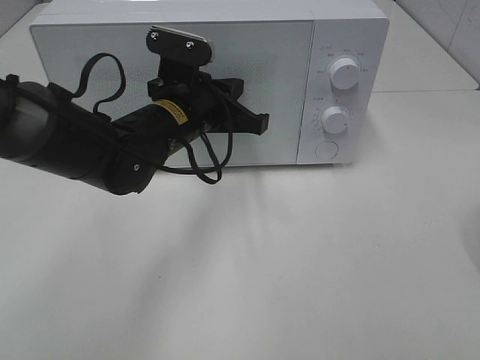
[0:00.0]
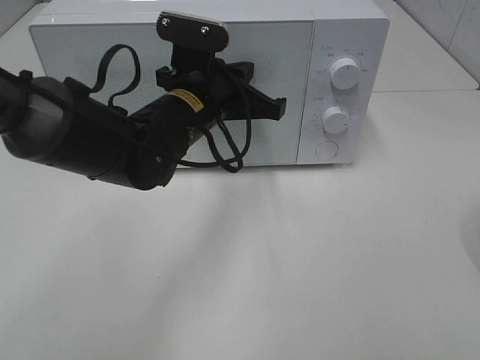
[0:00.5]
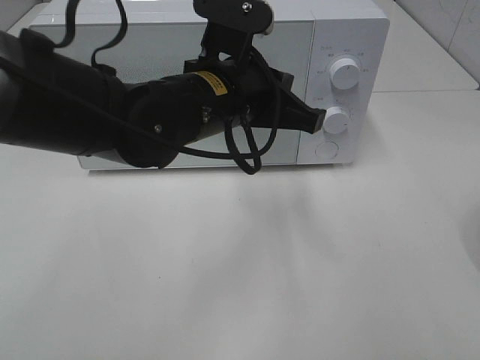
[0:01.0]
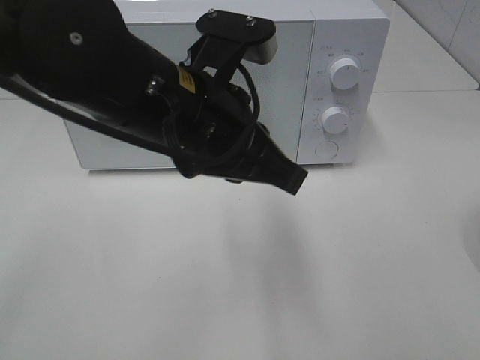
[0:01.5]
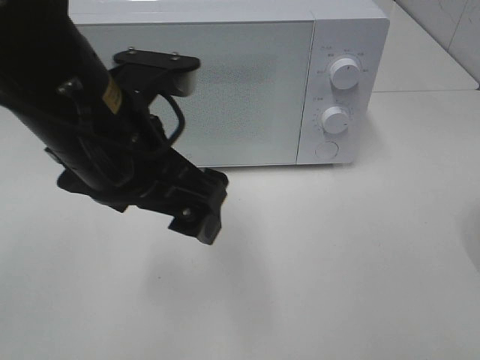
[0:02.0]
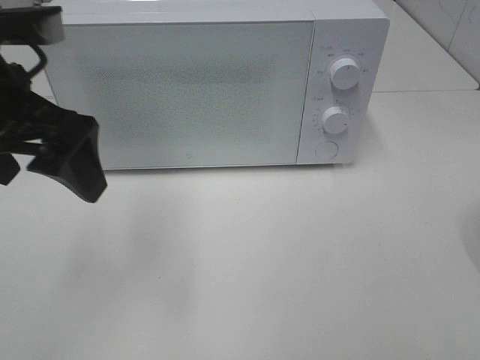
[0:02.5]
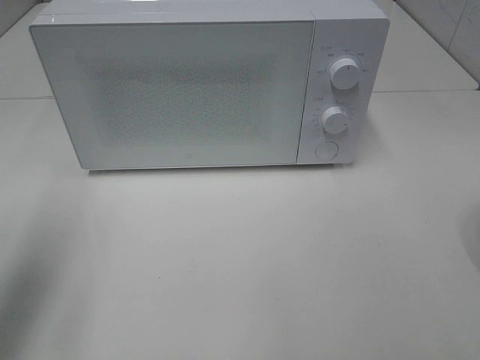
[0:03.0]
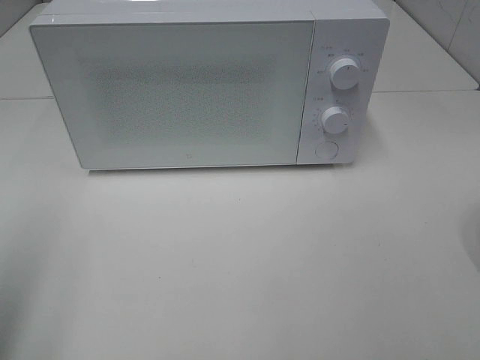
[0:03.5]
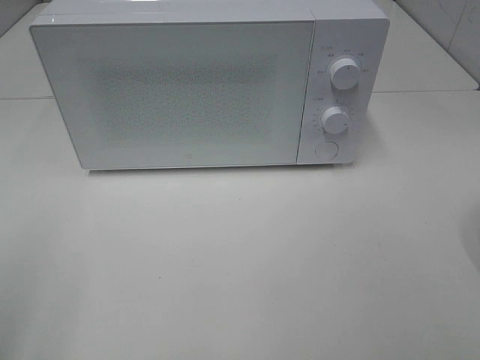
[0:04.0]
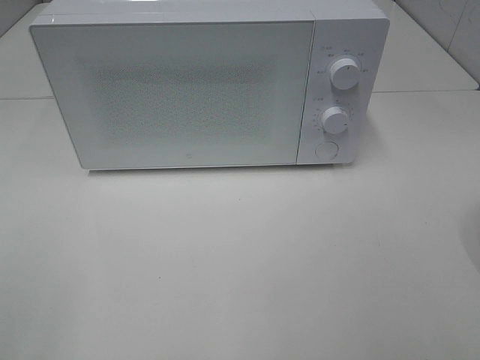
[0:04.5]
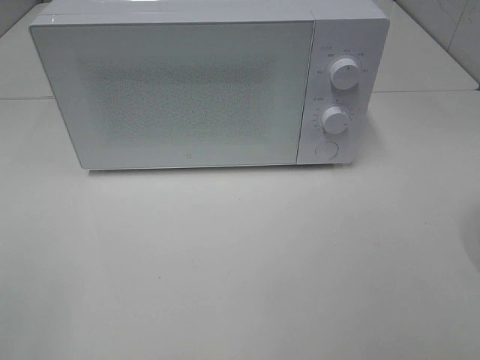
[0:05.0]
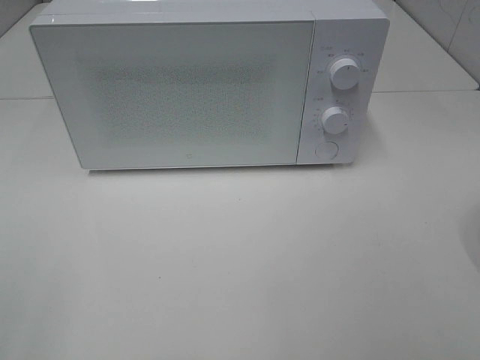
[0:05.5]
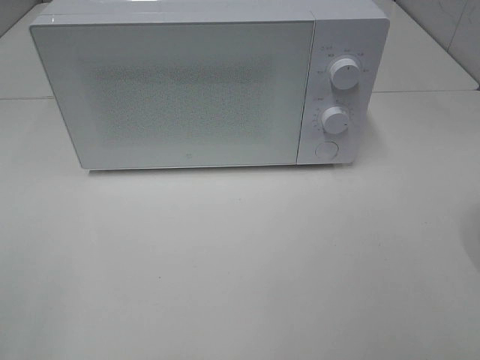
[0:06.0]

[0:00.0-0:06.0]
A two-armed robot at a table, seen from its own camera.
Task of the whole recording: Heat the burger.
0:00.0 to 0:02.0: The left gripper heads backward and upward, covering approximately 15 cm, and opens.
0:02.0 to 0:04.0: The left gripper is displaced to the left and backward by some 25 cm.

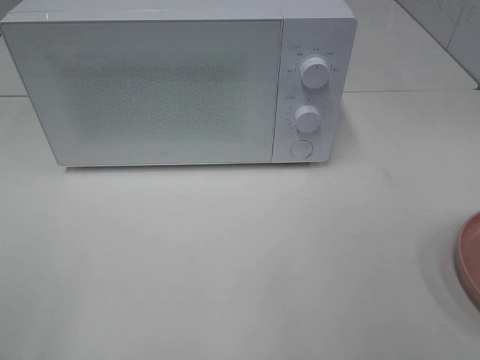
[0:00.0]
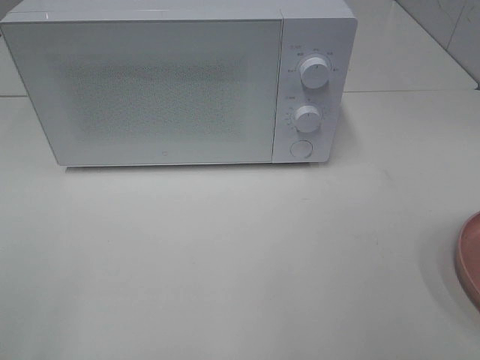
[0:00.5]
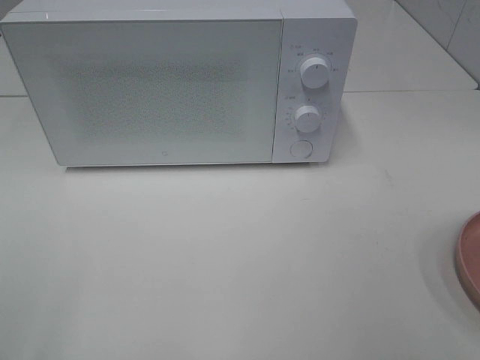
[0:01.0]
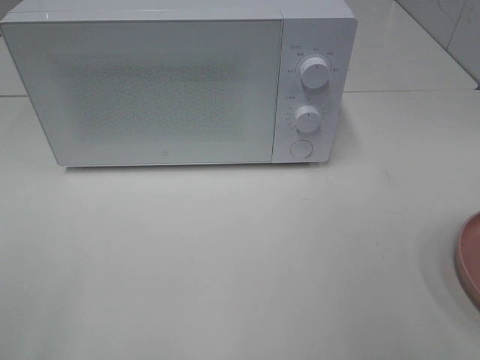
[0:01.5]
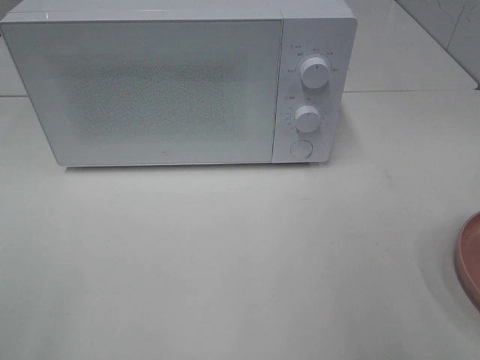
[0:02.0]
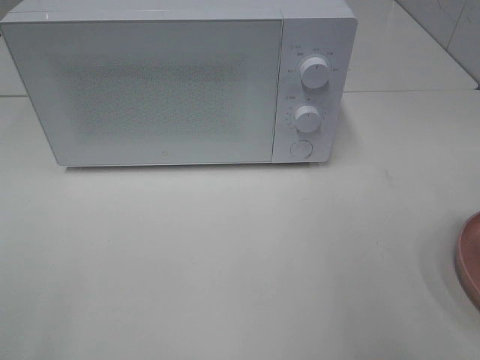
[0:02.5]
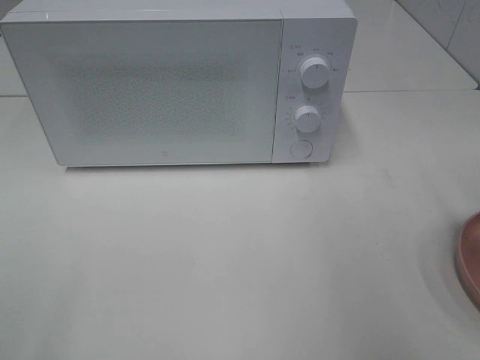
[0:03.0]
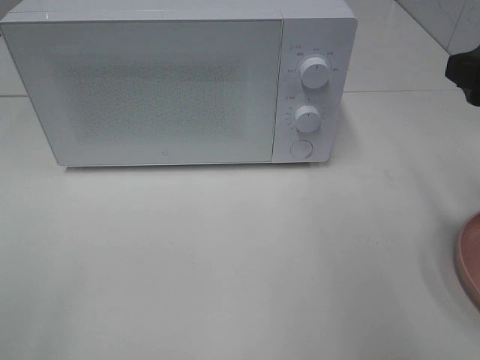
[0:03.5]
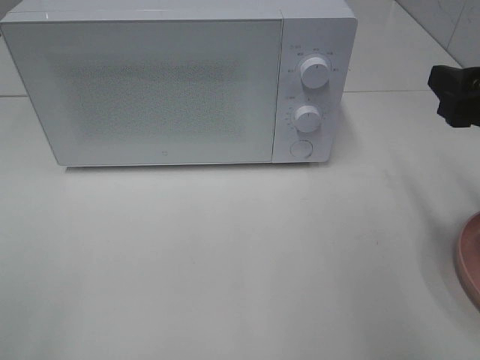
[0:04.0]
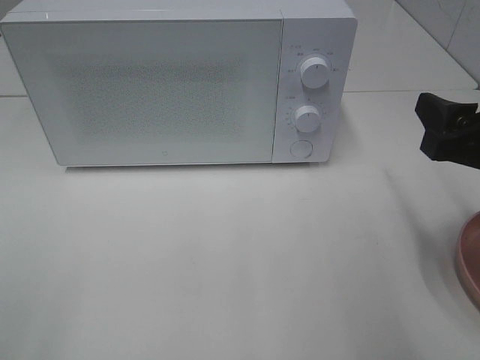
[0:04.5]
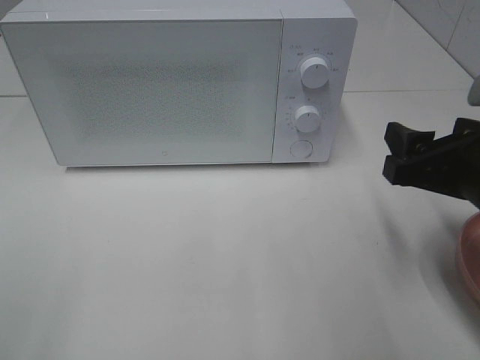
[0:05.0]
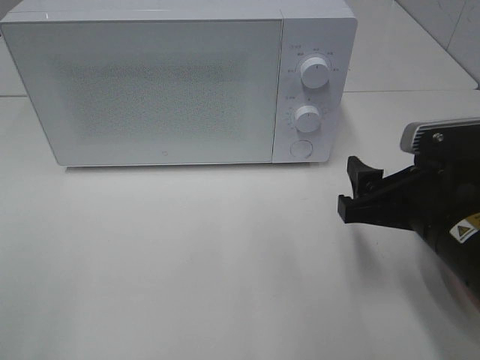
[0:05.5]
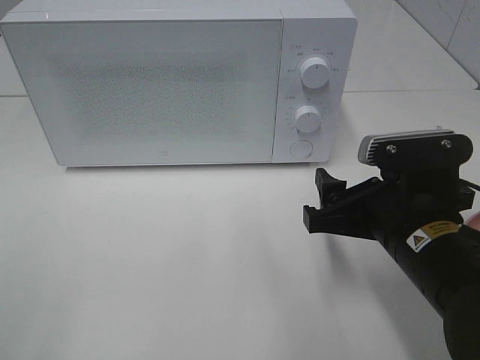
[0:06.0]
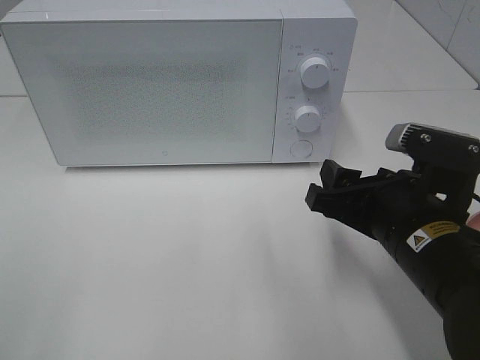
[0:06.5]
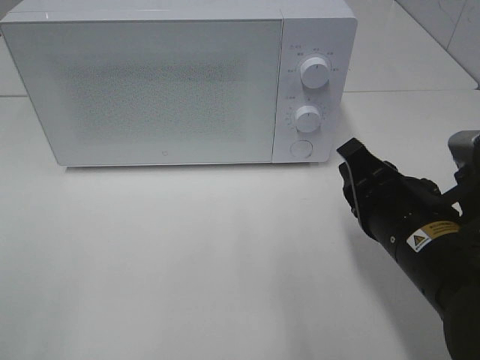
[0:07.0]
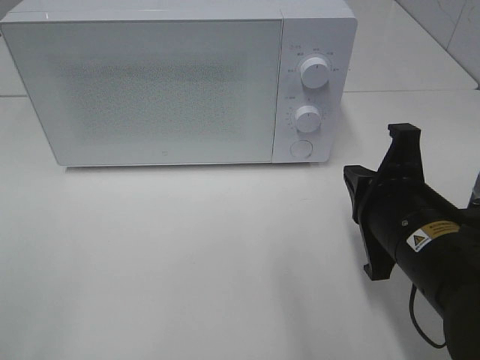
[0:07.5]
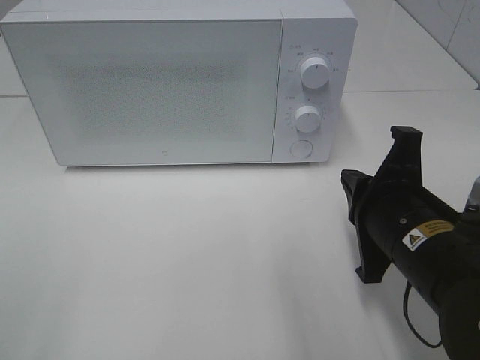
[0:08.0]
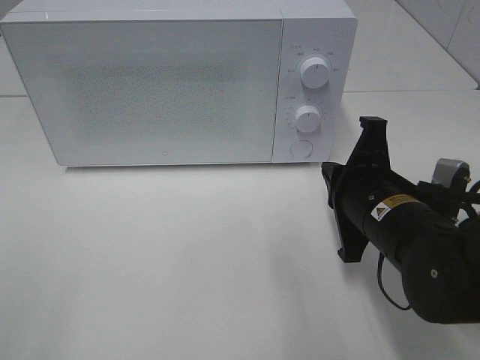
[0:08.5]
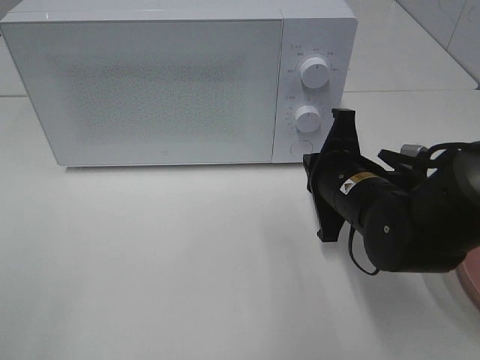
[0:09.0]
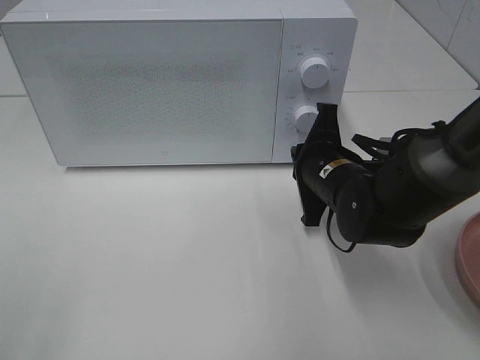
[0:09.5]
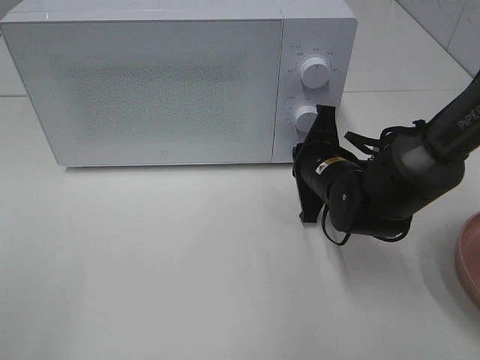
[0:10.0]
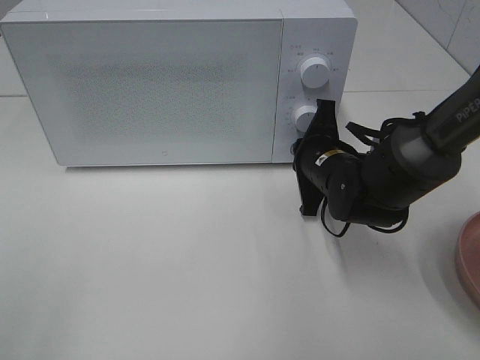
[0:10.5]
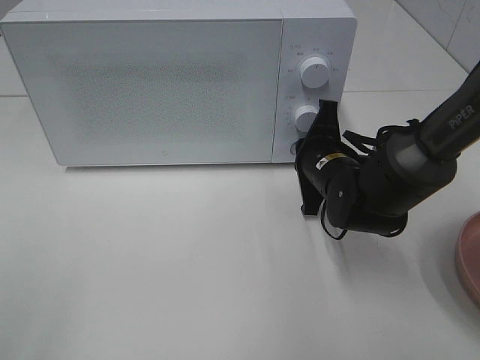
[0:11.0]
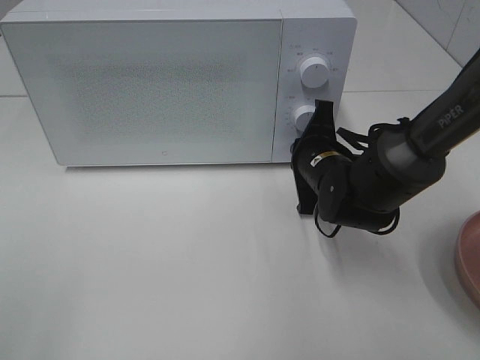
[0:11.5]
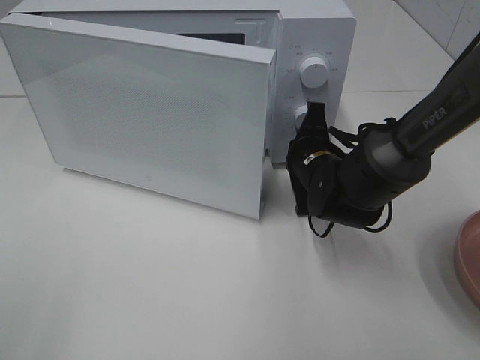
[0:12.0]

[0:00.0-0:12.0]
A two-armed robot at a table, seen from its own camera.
Task of the whole recording: Heat the burger.
0:02.0 to 0:04.0: The right gripper moves forward and downward, about 15 cm.
0:04.0 to 0:06.0: The right gripper travels to the left and downward by about 15 cm.
0:06.0 to 0:08.0: The right gripper closes.
0:08.0 to 0:10.0: The right gripper shifts approximately 15 cm forward and downward.
0:10.0 to 0:12.0: There are only small adjustments of the grippers.

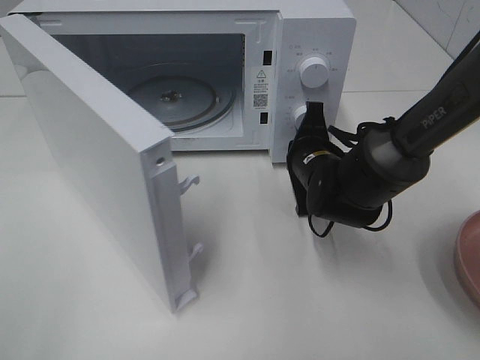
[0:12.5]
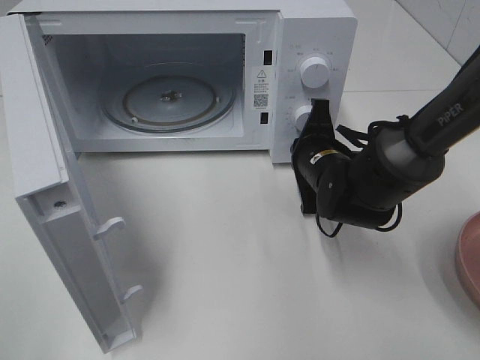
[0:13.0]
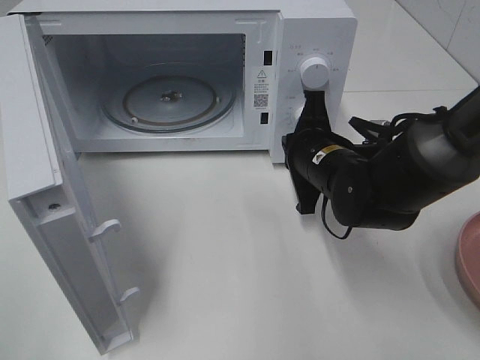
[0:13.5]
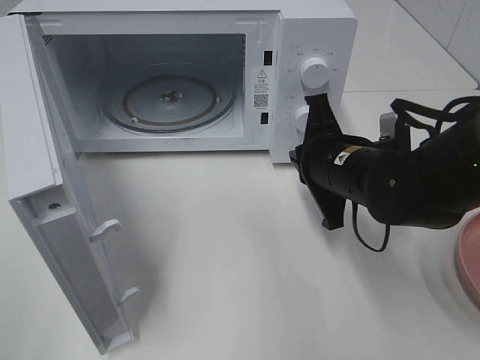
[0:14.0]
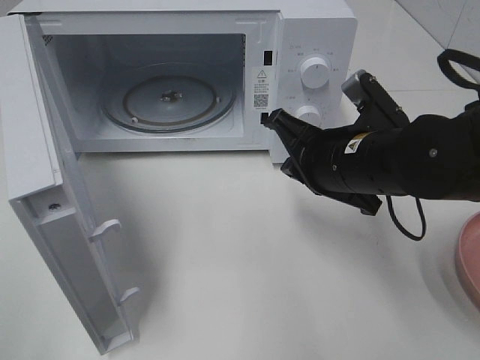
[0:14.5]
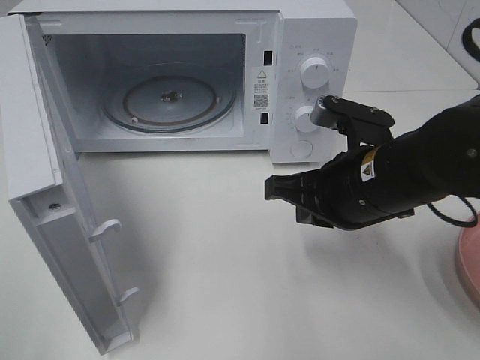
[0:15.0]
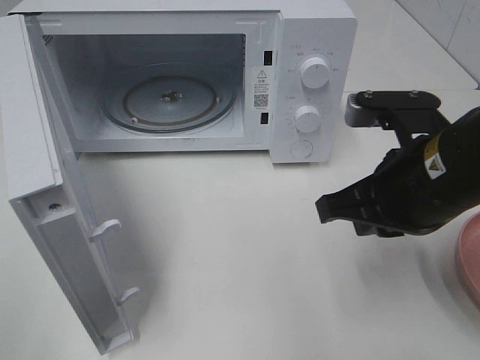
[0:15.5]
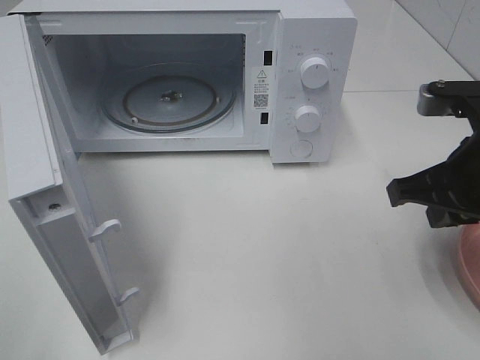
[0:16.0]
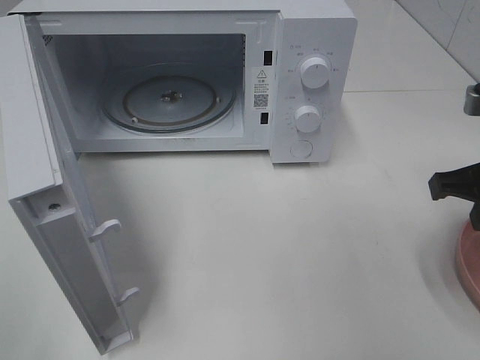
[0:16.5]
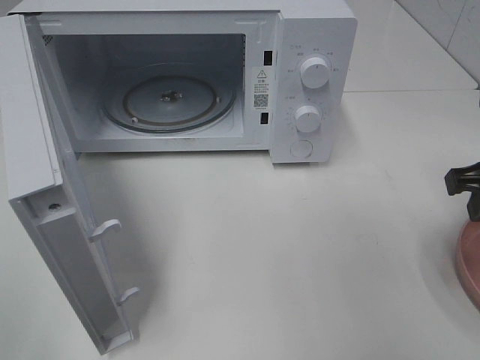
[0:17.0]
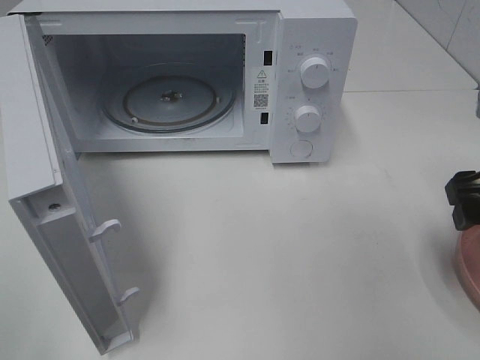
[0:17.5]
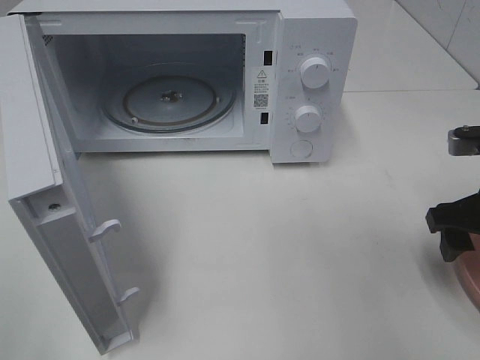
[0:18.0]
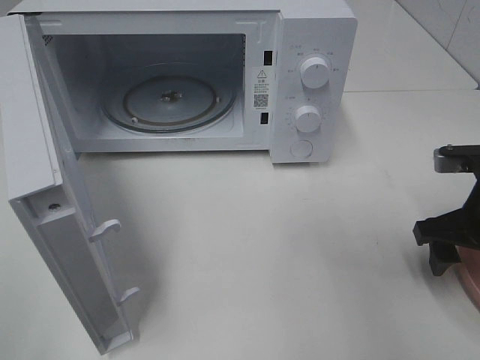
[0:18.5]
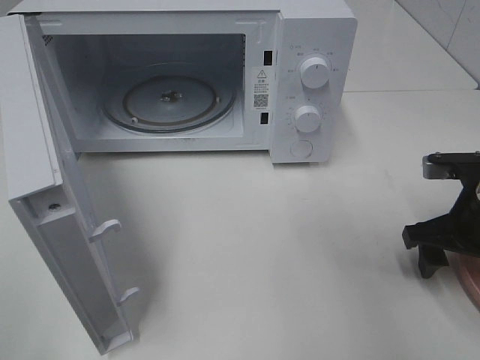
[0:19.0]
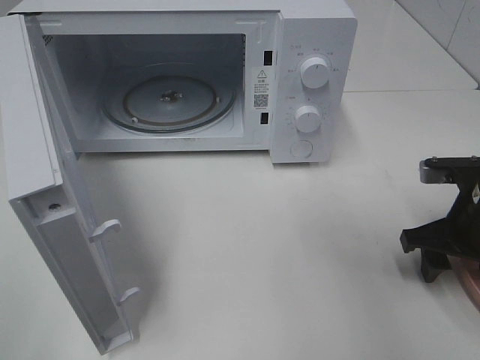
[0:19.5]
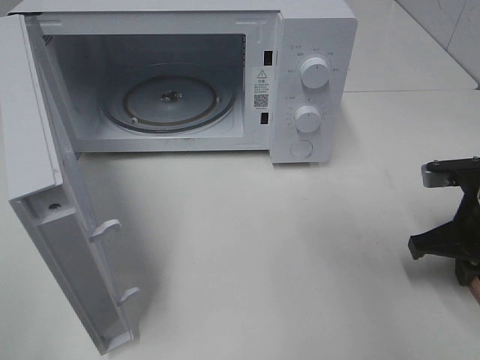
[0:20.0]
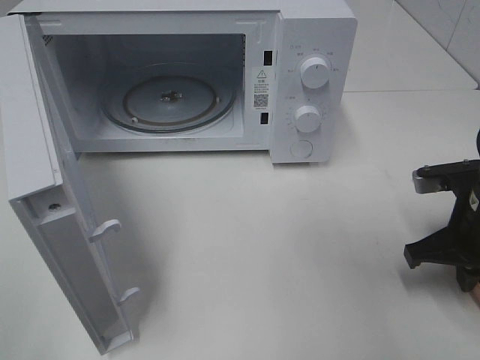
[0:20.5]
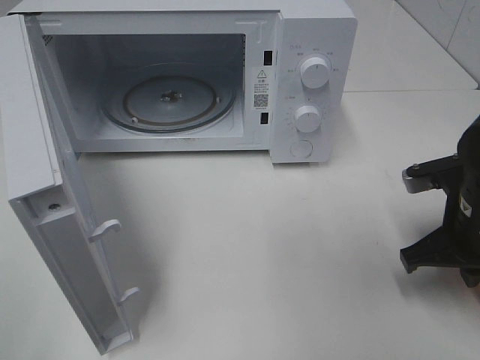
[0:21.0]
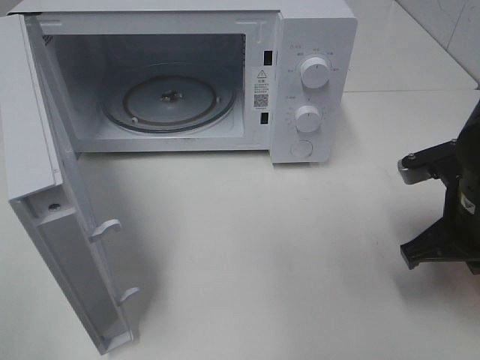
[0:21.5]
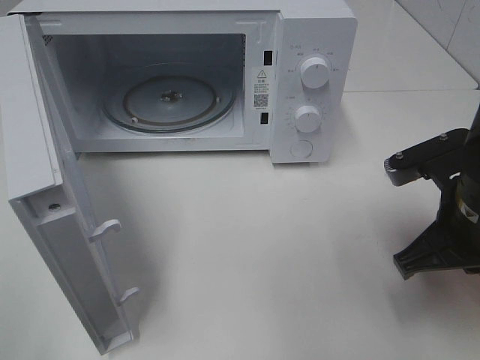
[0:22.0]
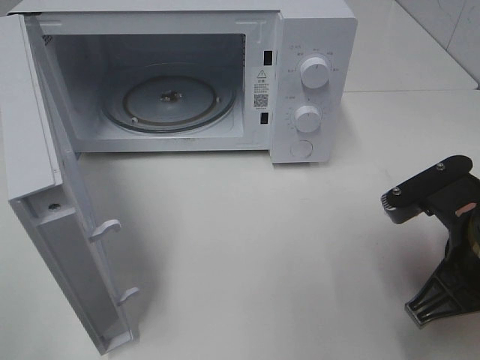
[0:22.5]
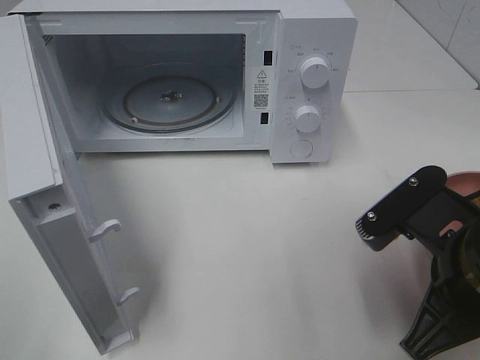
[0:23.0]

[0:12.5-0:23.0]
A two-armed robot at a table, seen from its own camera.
Task of the whole recording: Heat the burger.
Step, 0:13.5 to 0:20.5: Right hand: grab the plate with the hamburger.
0:12.5 to 0:14.5: The right gripper travels backward and upward by some 10 cm.
0:14.5 to 0:16.5: The right gripper shifts about 15 cm to the right.
0:16.5 to 0:19.0: The right gripper moves downward, about 10 cm, and opens.
0:19.0 to 0:21.0: The right gripper closes its fingers.
0:21.0 to 0:23.0: The right gripper moves backward, to the left and upward, roughly 15 cm.
